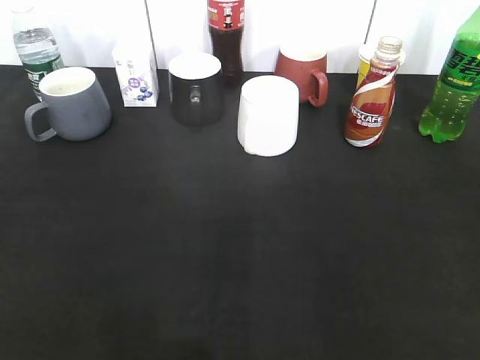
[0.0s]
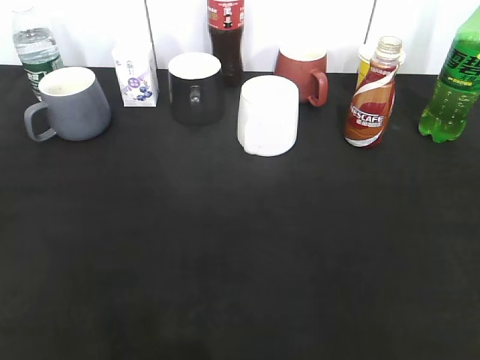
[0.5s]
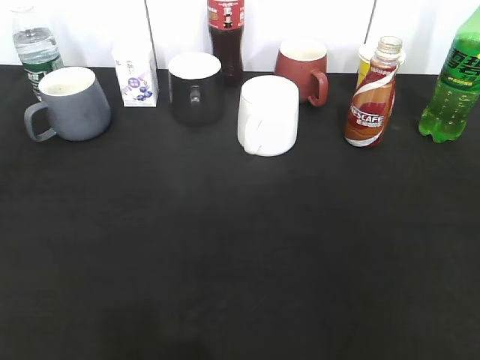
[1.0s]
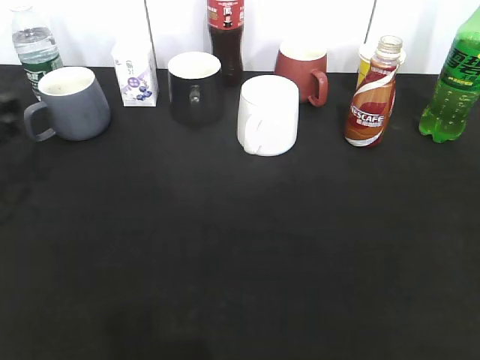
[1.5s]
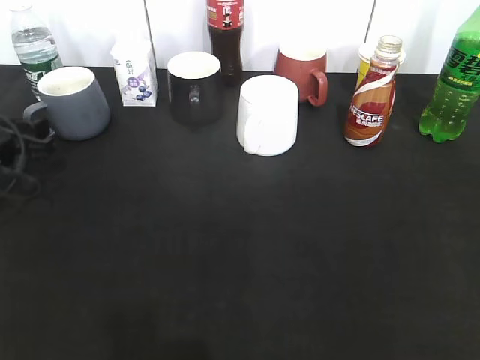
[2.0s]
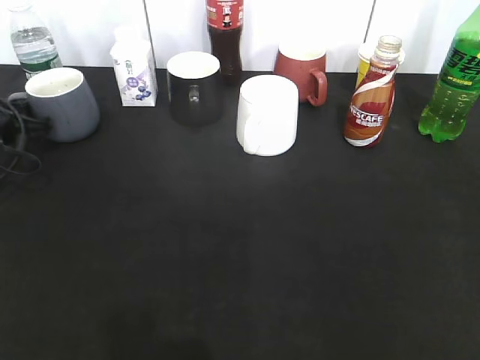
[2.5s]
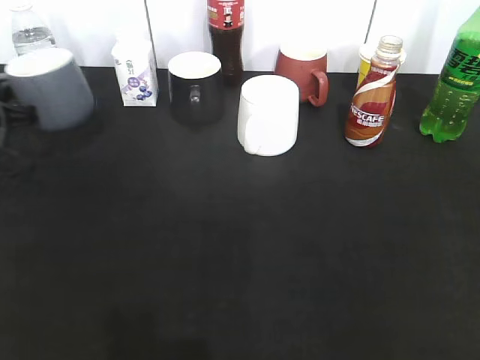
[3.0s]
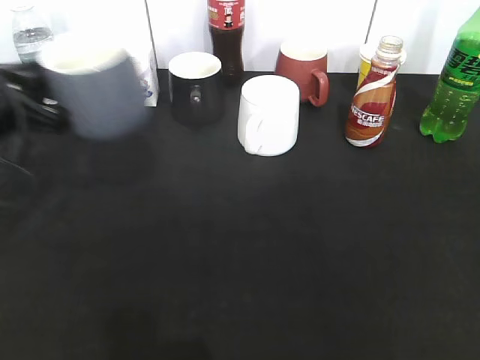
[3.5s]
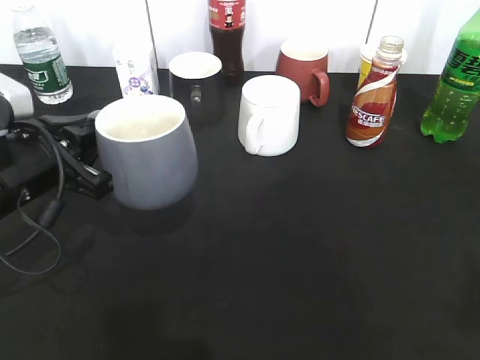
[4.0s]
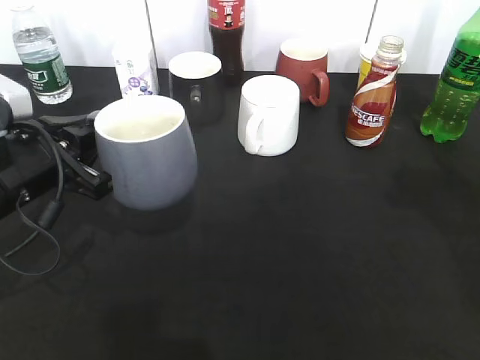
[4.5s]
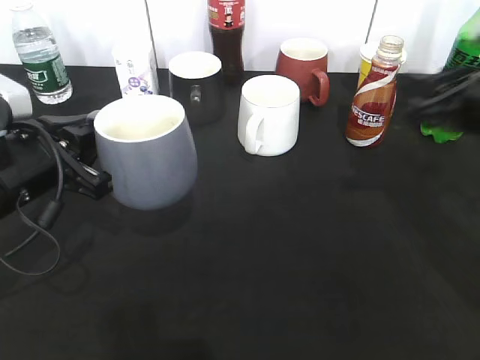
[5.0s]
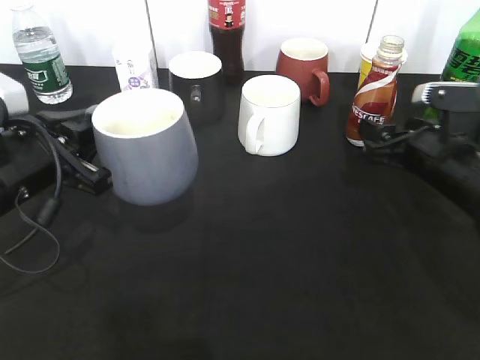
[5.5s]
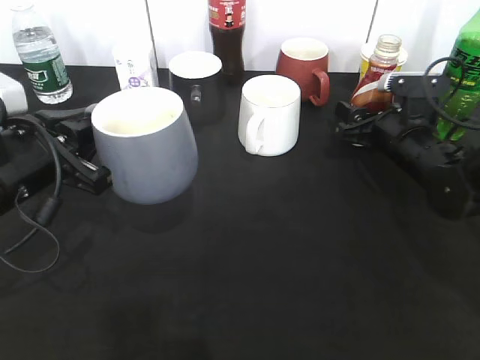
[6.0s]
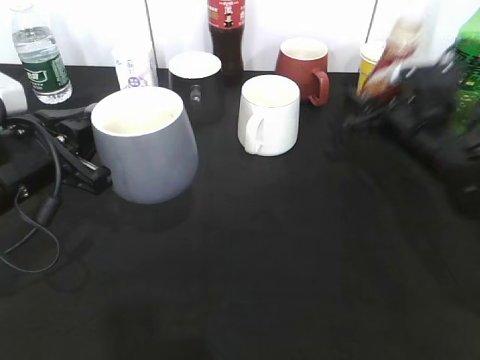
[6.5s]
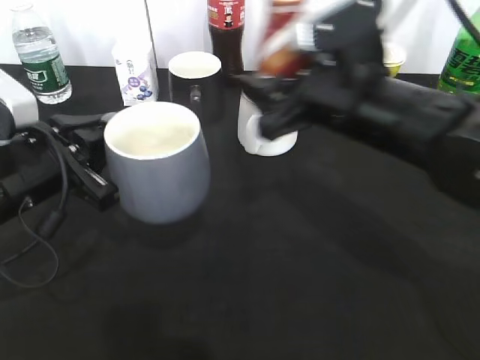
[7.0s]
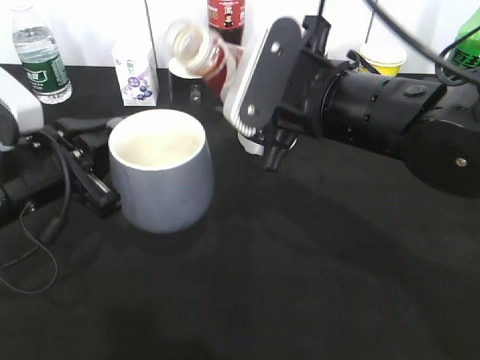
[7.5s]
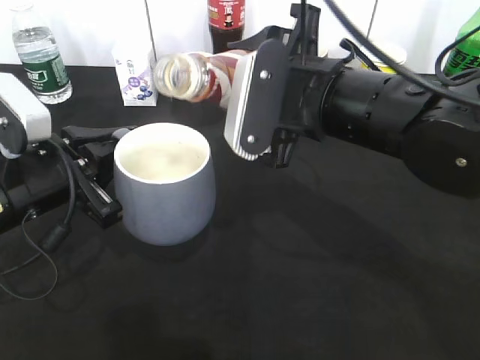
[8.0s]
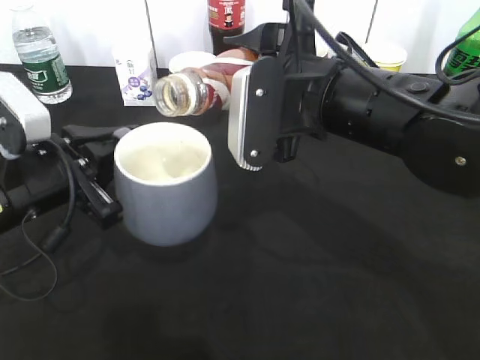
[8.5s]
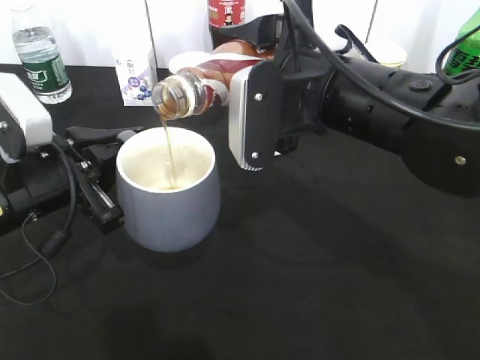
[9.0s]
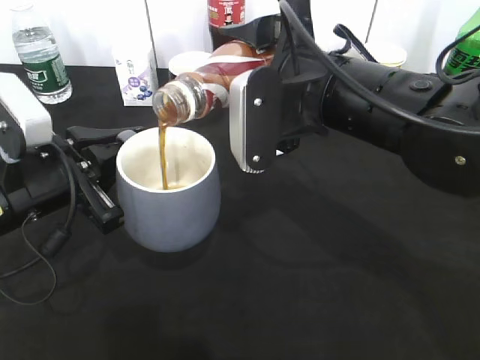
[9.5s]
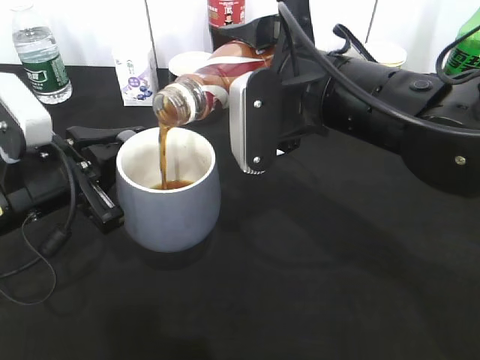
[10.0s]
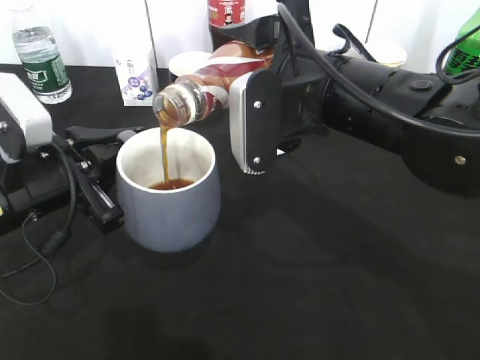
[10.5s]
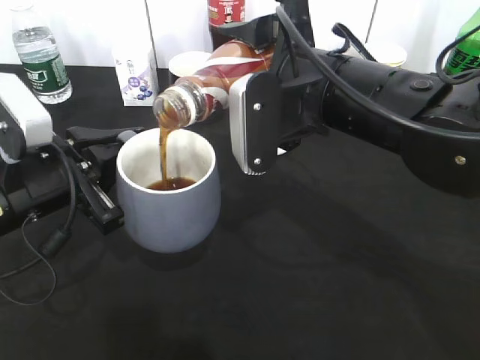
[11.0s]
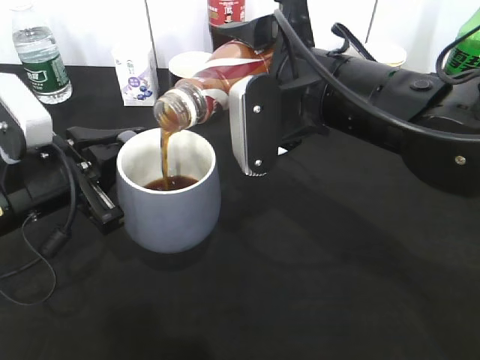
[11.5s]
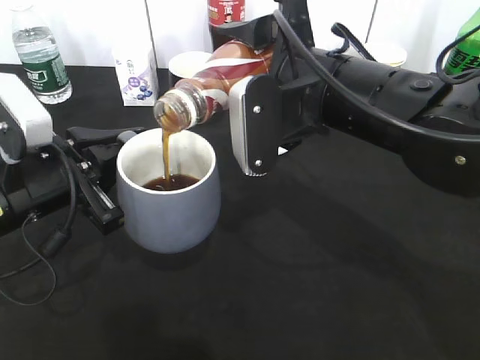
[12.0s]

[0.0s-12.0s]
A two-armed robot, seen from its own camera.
Step, 0.0s to 2.5s: Grasp the grey cup with left gripper.
Step, 3.0s to 4.0s: Lift the grey cup with left gripper.
Step, 4.5s to 6.0s: Grasp the bottle with coffee with right gripper.
0.0s to 2.0s: The left gripper goes about 35 cm forward and downward.
2.0s to 4.0s: The left gripper is displaced to the right, backward and upward by some 15 cm, and closes, while the right gripper ends up approximately 5 cm from where it was, and closes up.
4.0s to 6.0s: The right gripper shifts about 40 cm forward and downward, and opens up.
6.0s to 8.0s: The right gripper travels upward, to the left and backward by about 20 cm, and closes its fingers.
8.0s to 10.0s: There are only small adjustments of the grippers.
10.0s to 12.0s: Both grippers stay put.

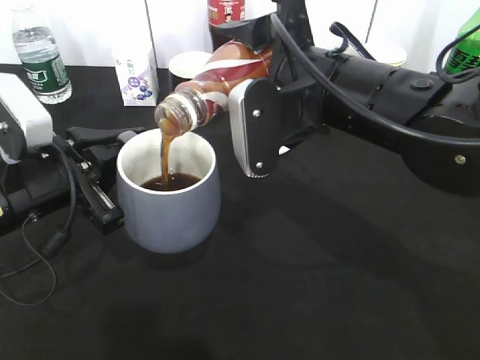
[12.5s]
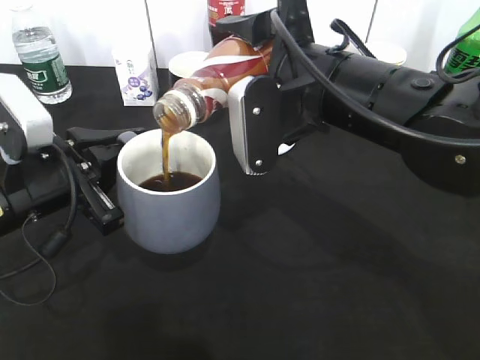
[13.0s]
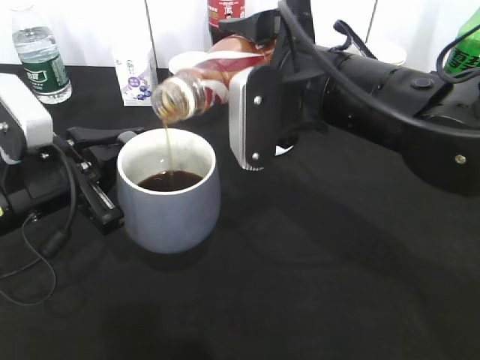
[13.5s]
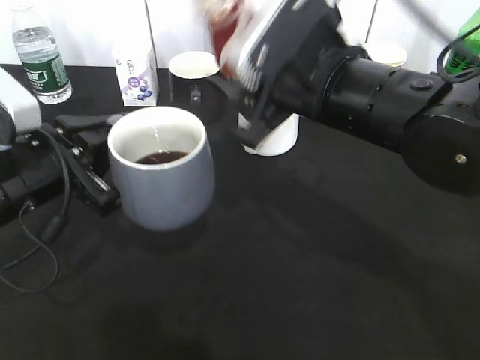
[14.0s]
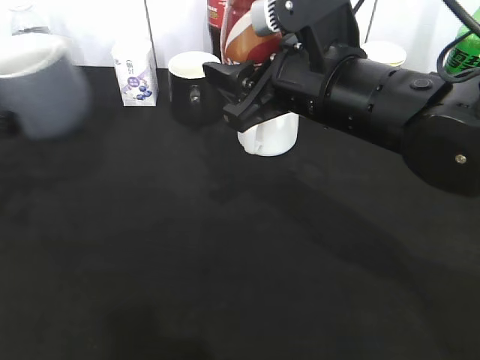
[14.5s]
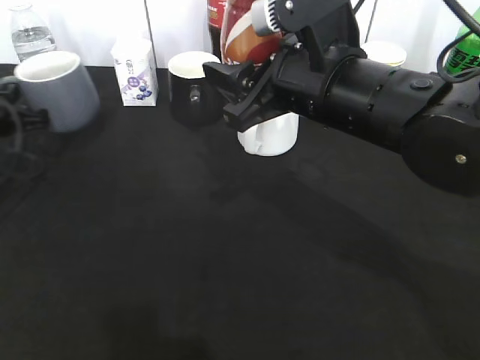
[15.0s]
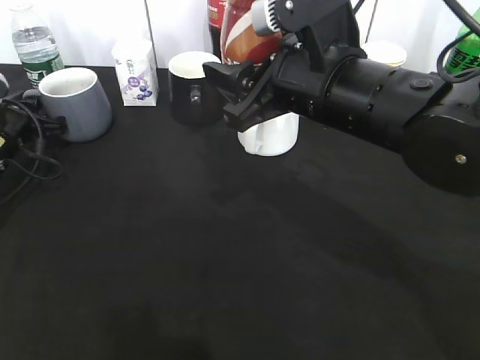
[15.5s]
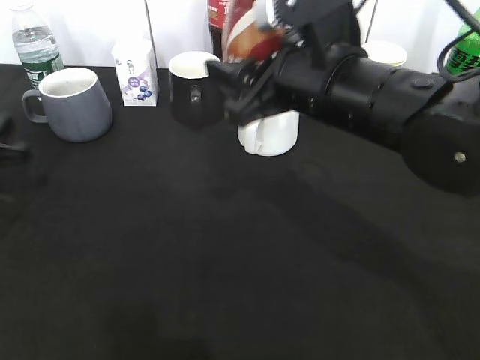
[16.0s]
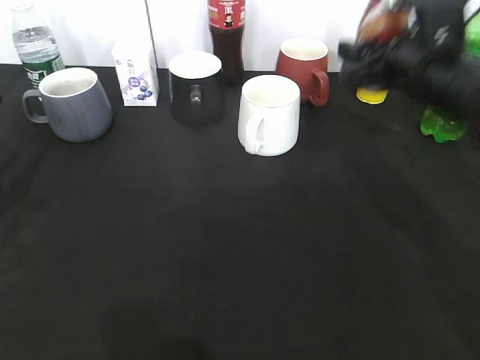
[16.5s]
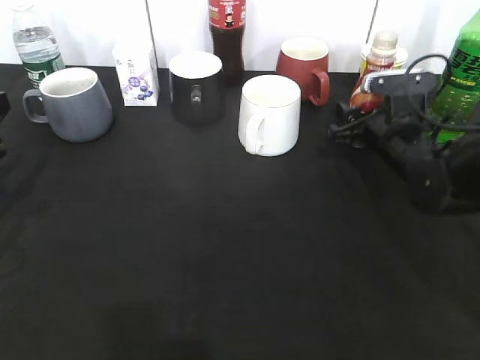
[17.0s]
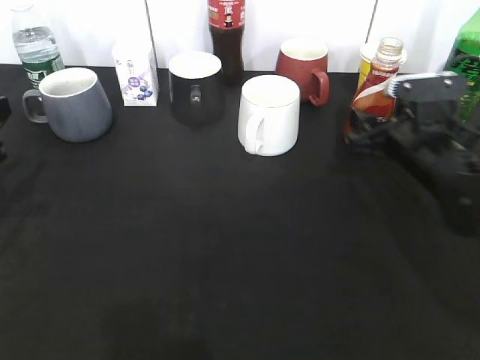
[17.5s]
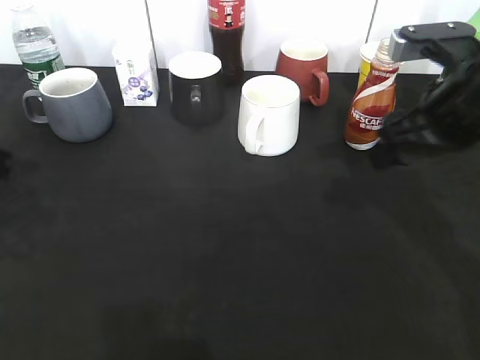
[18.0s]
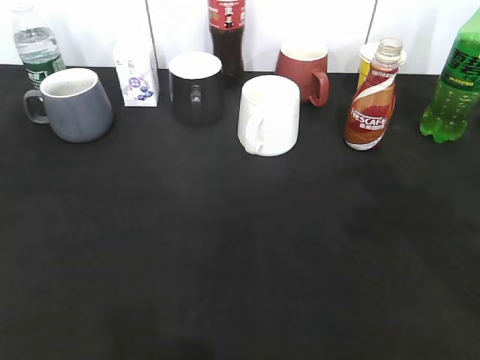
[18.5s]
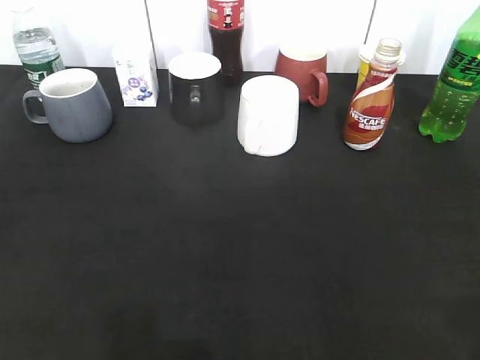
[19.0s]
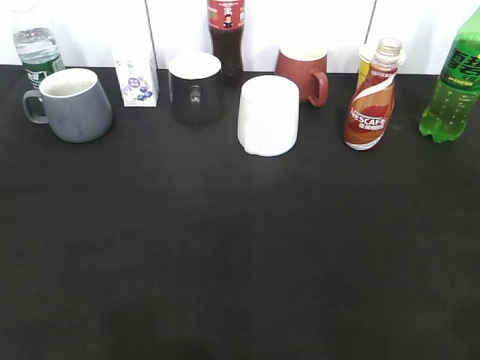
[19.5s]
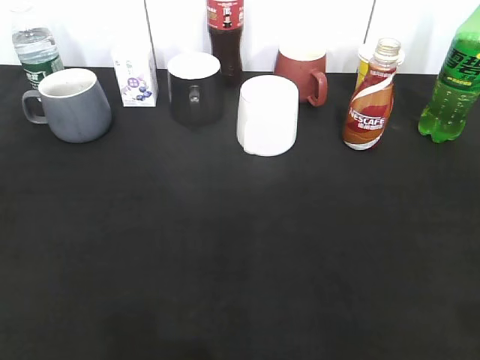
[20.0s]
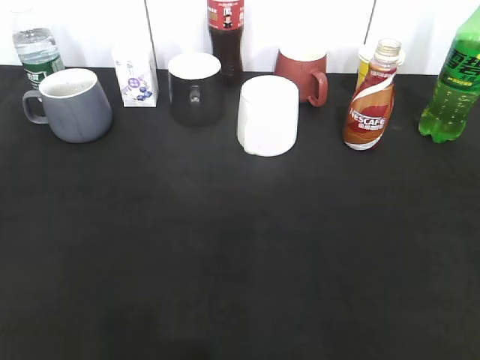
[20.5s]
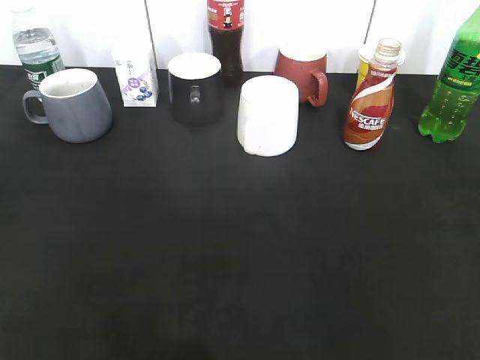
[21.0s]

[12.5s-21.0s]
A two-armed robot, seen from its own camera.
Step, 14.5s to 15.5s: Place the grey cup on the table with left gripper.
Step, 16.0s to 18.0s: Place the coffee bottle on the table with right gripper.
12.5s to 14.5s: The left gripper travels to the left by about 10 cm.
14.5s to 16.5s: The left gripper travels forward and back again, roughly 10 cm each way, and opens its fingers, while the right gripper shifts roughly 15 cm to the right and forward.
16.5s to 19.0s: The two grippers go roughly 25 cm backward. The right gripper opens and closes again.

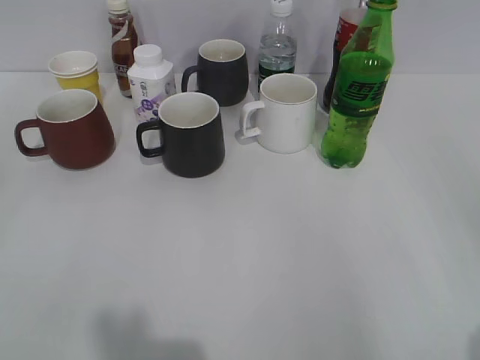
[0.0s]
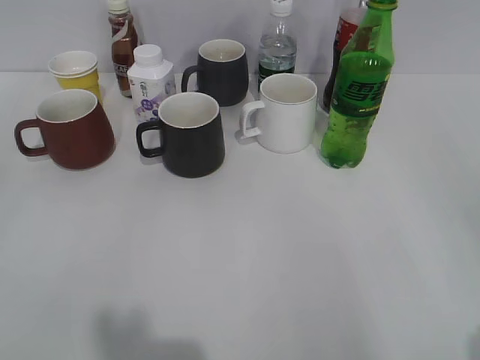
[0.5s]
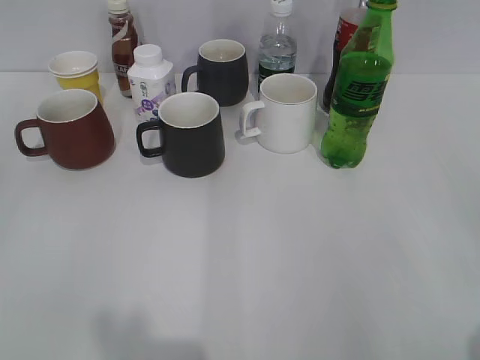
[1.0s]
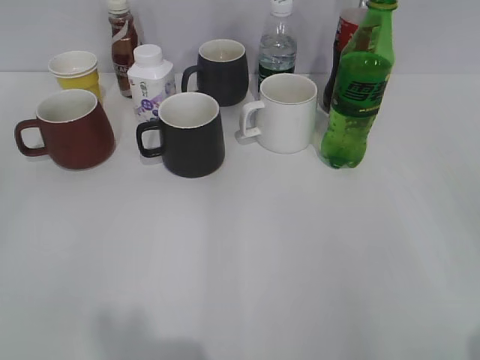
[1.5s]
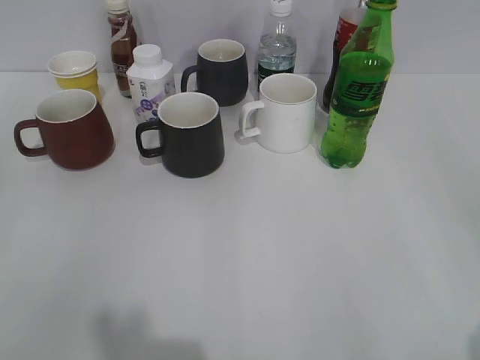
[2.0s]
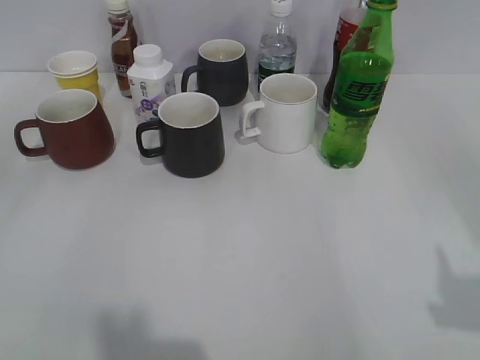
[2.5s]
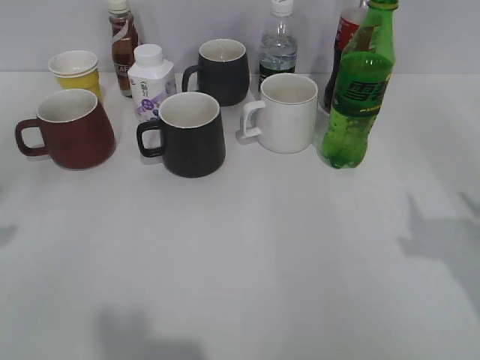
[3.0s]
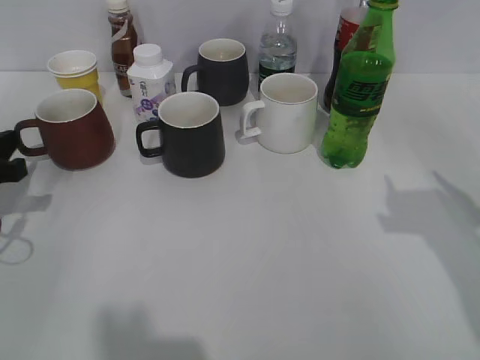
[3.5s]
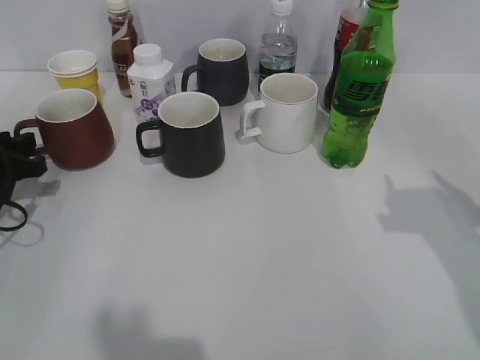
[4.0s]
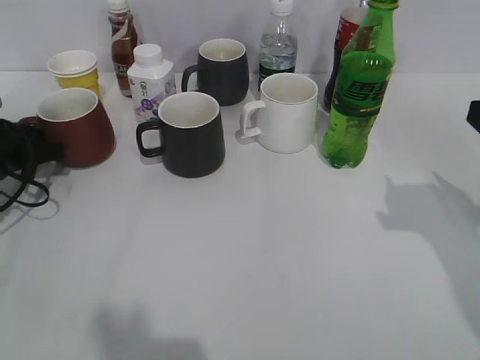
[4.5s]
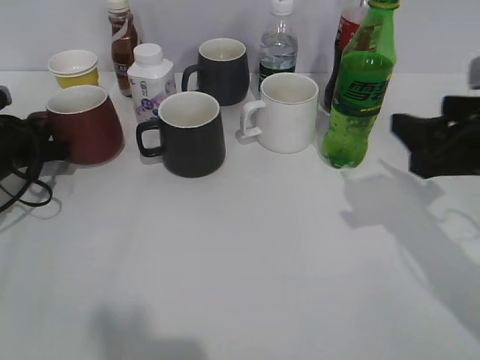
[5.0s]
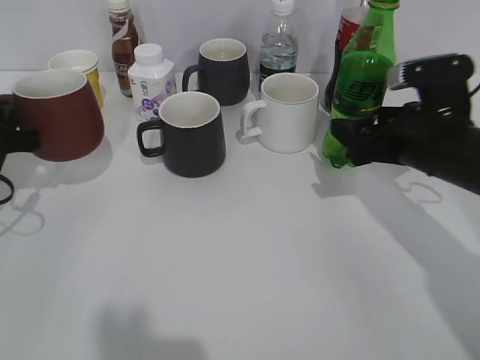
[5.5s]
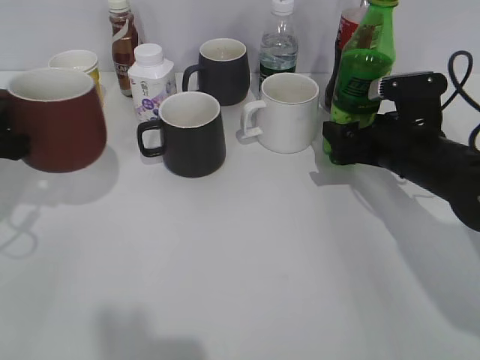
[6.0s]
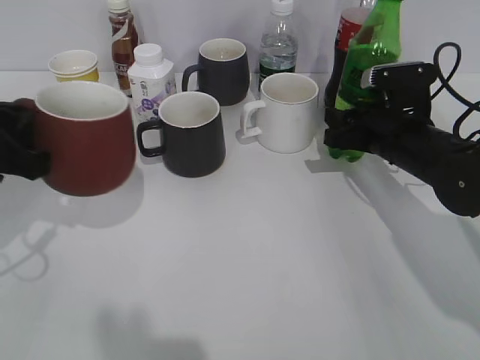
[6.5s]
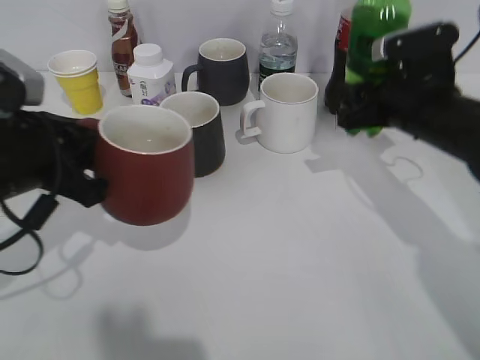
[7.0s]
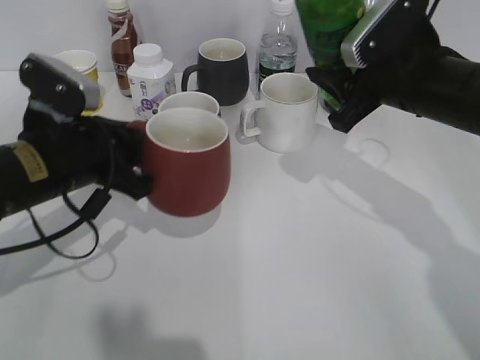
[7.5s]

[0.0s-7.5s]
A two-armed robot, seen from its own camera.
Step, 2.0s to 4.0s: Grasp the red cup with left gripper.
Step, 4.5s to 6.5s: Grasp the bottle with sprite with right gripper.
2.0s to 4.0s: The right gripper moves forward, about 20 cm. Meanwhile the left gripper travels forward and downward by some 35 cm.
4.0s to 5.5s: The right gripper goes about 15 cm forward, downward and to the left. The left gripper closes.
5.5s to 7.5s: The right gripper is displaced upward by about 5 cm, and closes, while the left gripper goes about 10 cm to the right.
